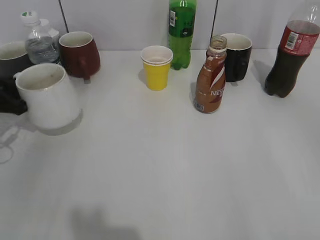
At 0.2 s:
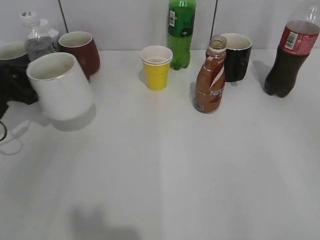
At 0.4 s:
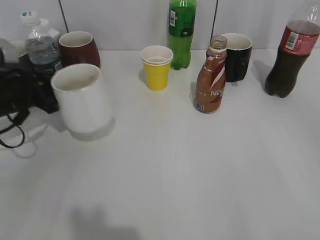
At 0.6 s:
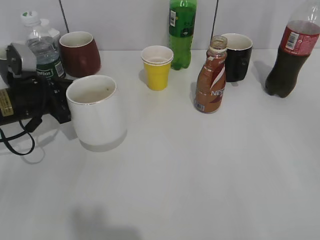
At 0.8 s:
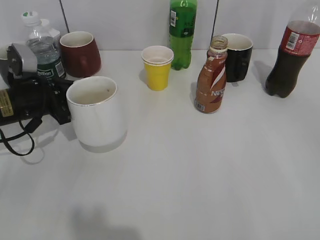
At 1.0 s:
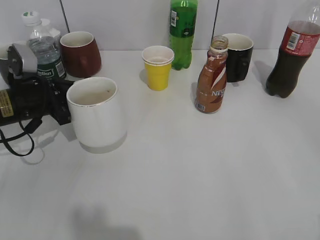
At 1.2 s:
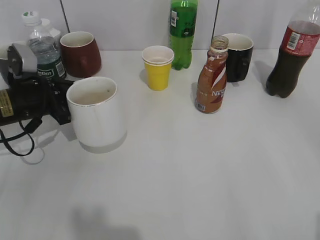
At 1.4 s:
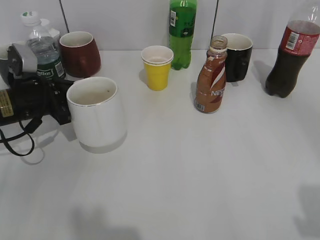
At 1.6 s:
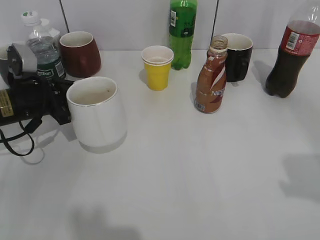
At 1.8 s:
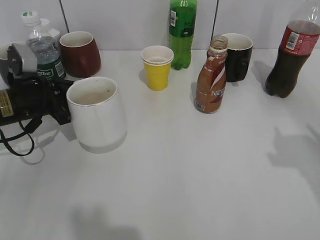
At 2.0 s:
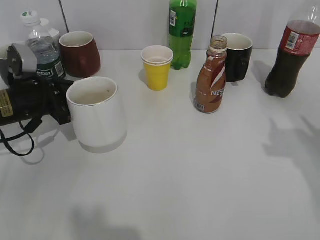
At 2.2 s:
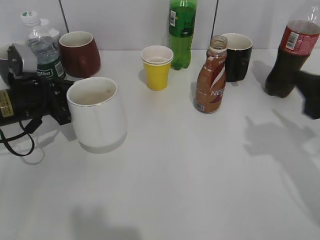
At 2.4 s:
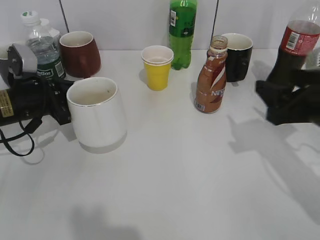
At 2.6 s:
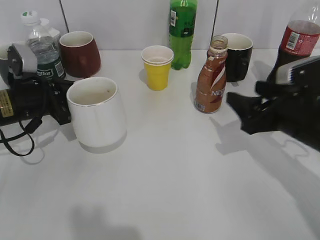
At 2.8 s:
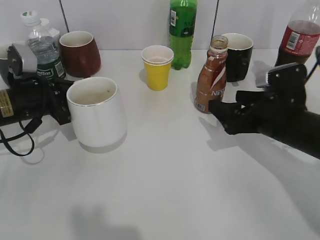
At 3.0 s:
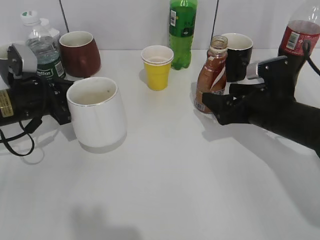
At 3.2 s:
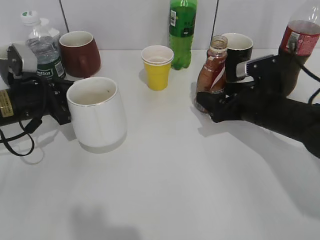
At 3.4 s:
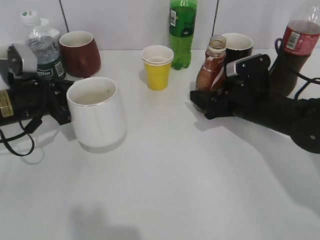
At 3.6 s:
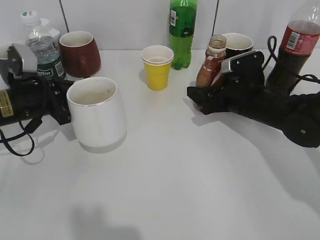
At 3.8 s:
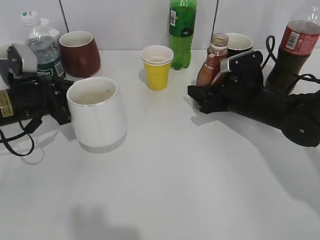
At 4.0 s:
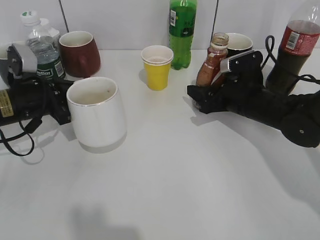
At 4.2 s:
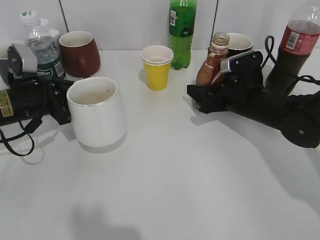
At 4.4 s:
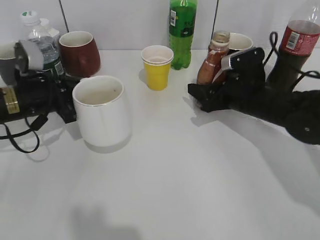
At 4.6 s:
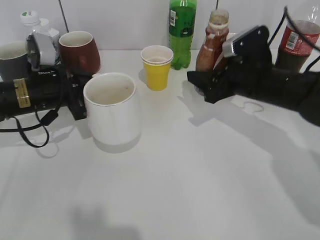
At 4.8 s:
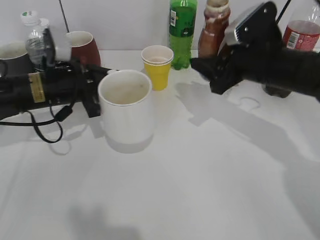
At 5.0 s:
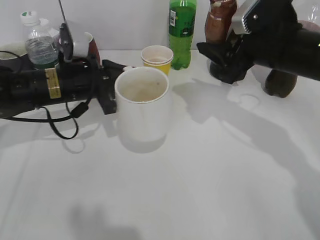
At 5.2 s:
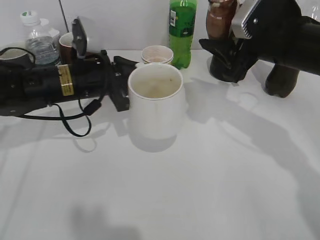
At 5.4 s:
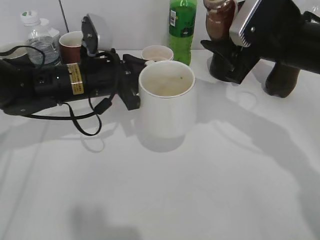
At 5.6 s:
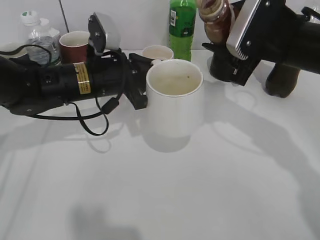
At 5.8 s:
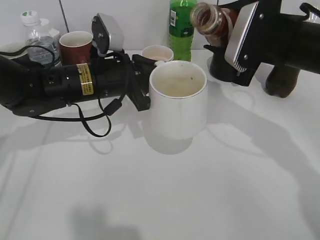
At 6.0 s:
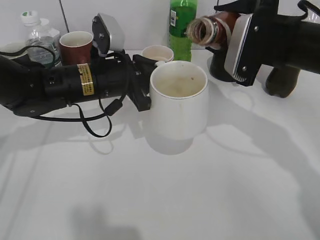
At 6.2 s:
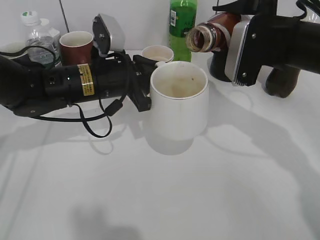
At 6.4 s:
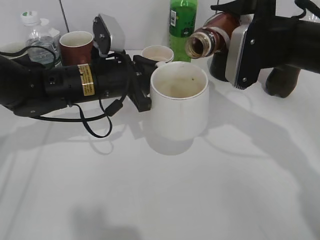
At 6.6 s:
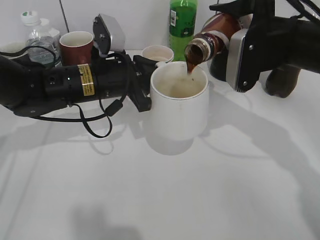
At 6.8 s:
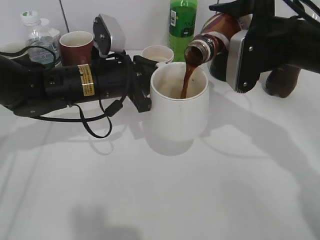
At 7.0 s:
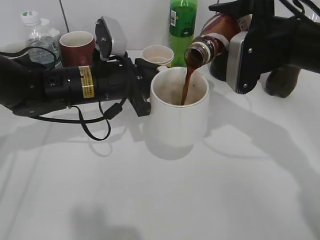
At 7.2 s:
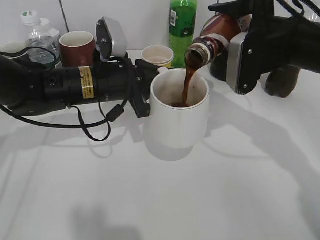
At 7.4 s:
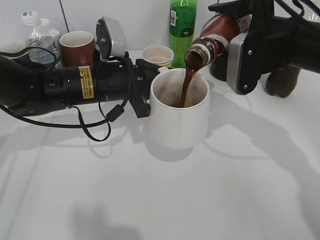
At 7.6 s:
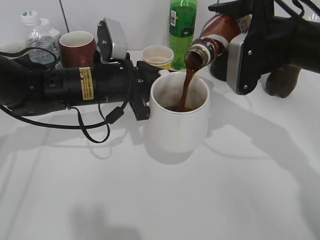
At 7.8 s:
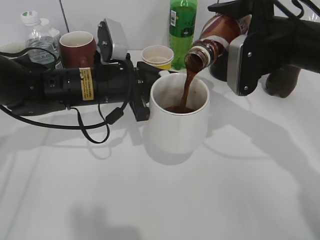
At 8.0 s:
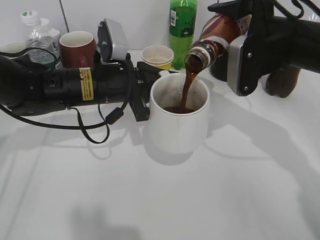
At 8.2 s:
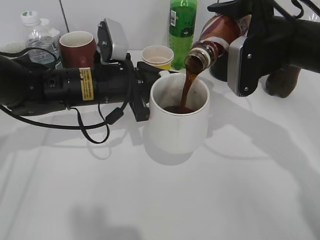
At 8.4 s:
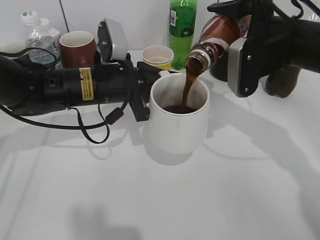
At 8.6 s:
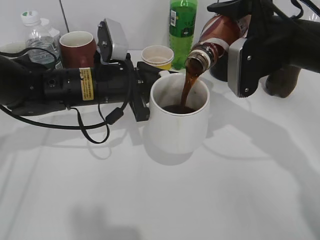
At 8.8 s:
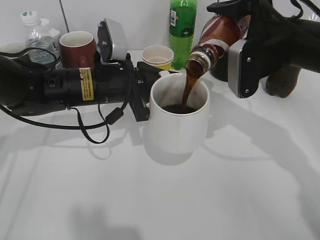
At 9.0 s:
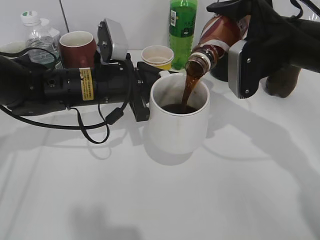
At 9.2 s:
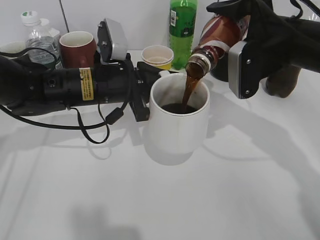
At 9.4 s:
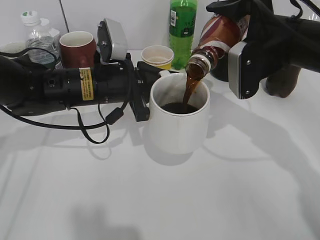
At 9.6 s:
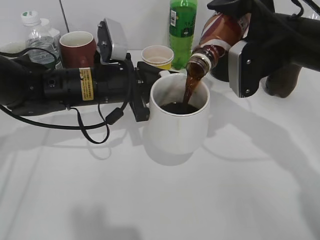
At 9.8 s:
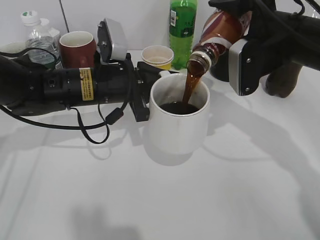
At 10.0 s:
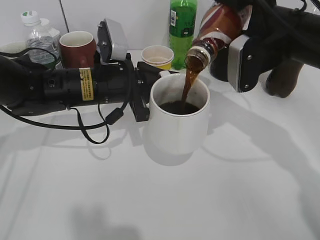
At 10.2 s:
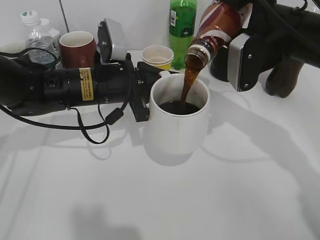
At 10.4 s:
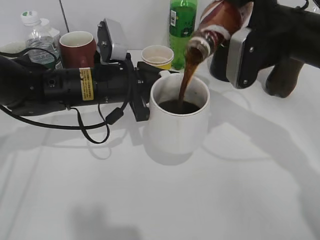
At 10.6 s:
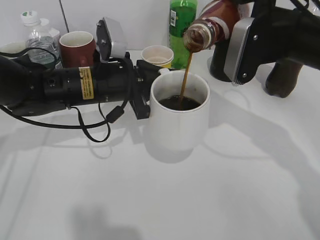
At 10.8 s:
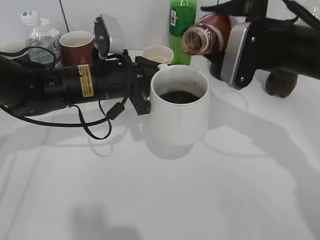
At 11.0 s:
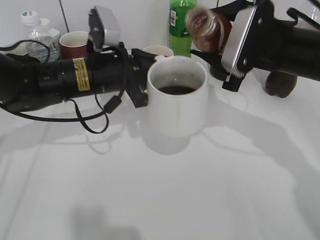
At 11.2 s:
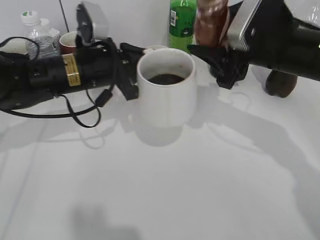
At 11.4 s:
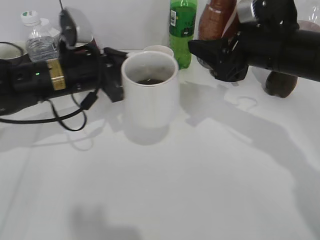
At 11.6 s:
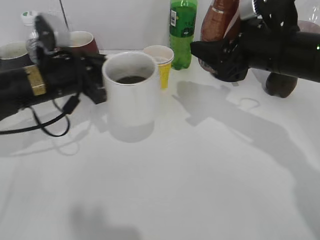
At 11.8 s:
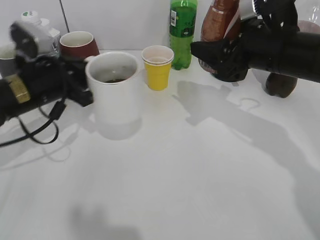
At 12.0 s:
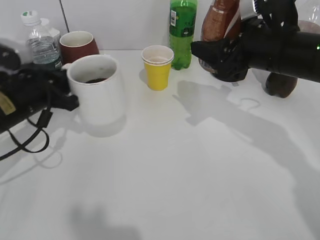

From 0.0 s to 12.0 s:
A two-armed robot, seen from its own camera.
Step, from 0.0 s to 1.0 s: Lift the white cup with left gripper.
Step, from 1.4 s to 4.2 s: Grasp the bottle with coffee with right gripper.
Step, from 4.6 s to 10.8 s: Pour the coffee from bottle to cup with right gripper.
From 0.0 s to 1.6 s: The right gripper travels forward by approximately 10 cm; the left gripper travels to the right by some 10 cm.
From 1.6 s to 3.0 s: The right gripper moves forward, downward and to the left, about 30 cm, and opens up.
From 3.0 s to 4.4 s: The right gripper moves forward, roughly 5 cm, and closes.
From 4.4 s to 6.0 s: The left gripper heads to the right, covering about 15 cm; the right gripper is displaced upward by about 15 cm.
From 7.6 s to 10.4 s: The grippers make only small movements.
From 10.4 s to 12.0 s: The left gripper is displaced to the left by some 15 cm.

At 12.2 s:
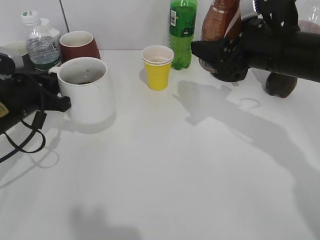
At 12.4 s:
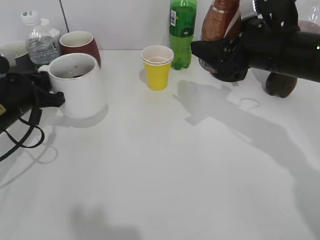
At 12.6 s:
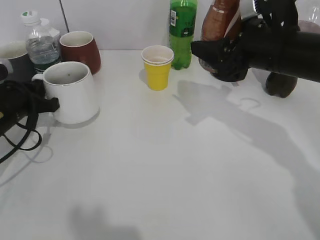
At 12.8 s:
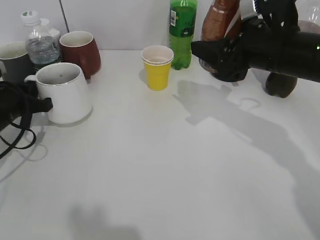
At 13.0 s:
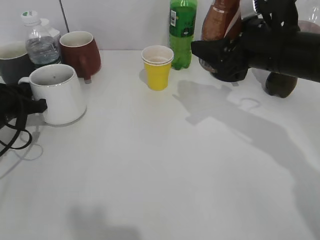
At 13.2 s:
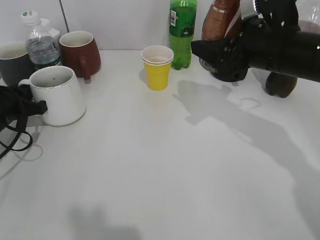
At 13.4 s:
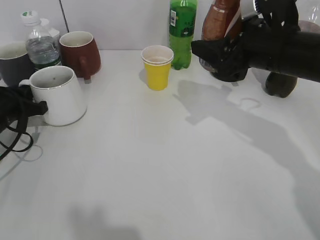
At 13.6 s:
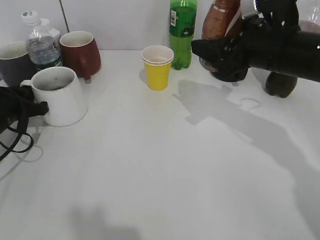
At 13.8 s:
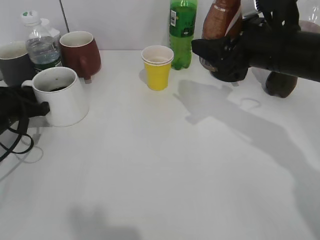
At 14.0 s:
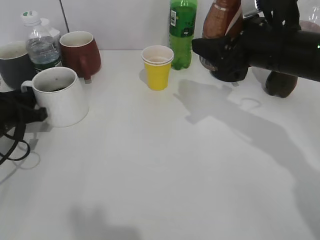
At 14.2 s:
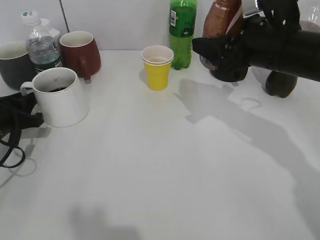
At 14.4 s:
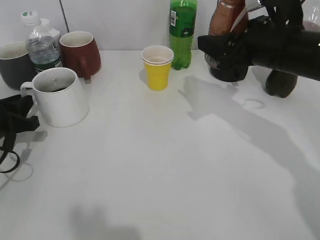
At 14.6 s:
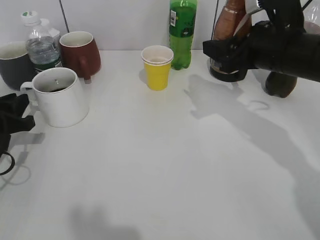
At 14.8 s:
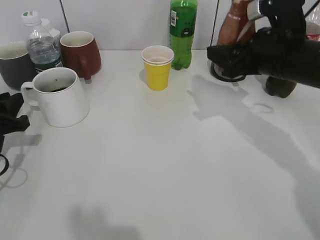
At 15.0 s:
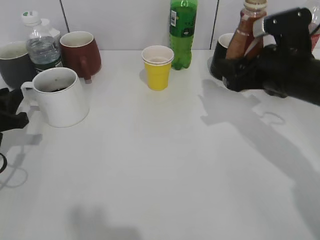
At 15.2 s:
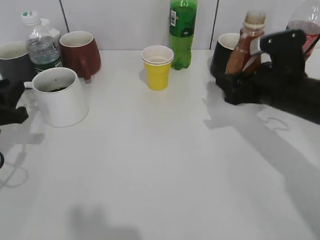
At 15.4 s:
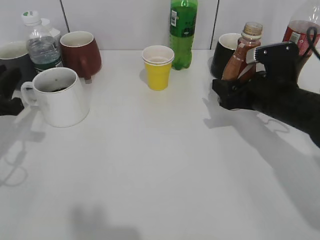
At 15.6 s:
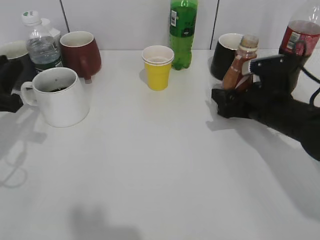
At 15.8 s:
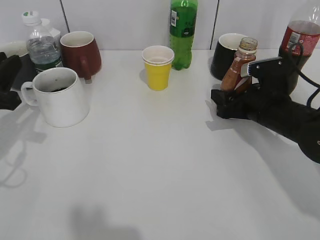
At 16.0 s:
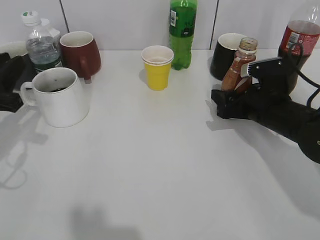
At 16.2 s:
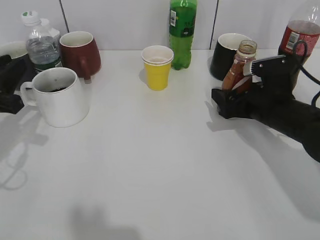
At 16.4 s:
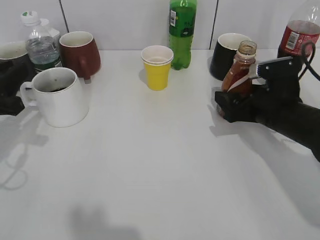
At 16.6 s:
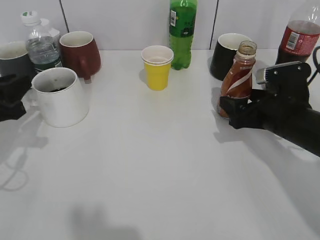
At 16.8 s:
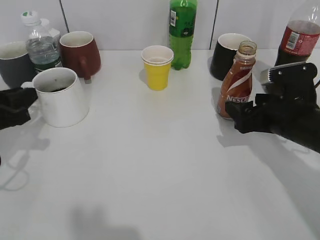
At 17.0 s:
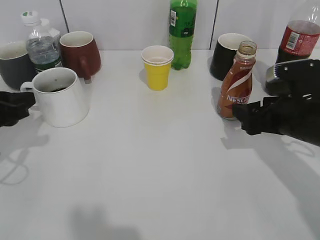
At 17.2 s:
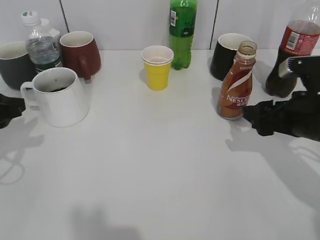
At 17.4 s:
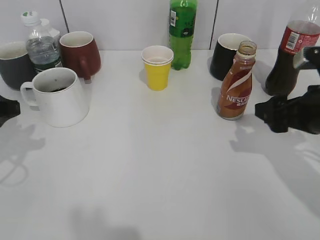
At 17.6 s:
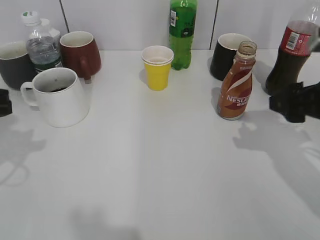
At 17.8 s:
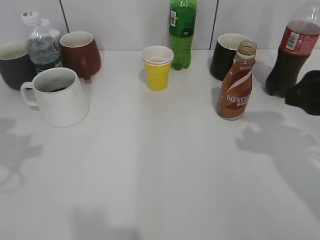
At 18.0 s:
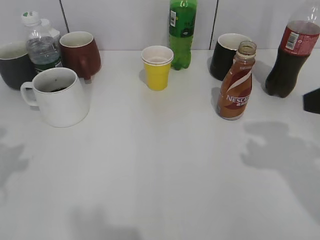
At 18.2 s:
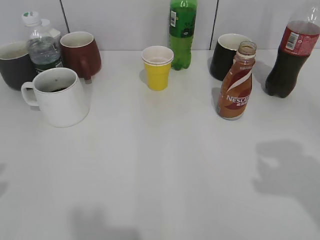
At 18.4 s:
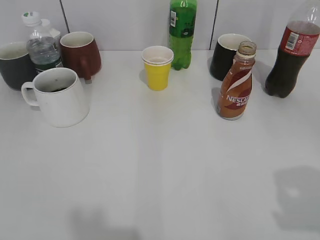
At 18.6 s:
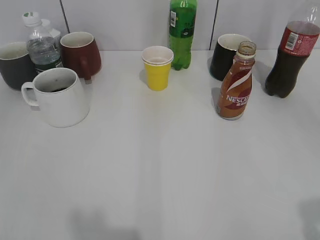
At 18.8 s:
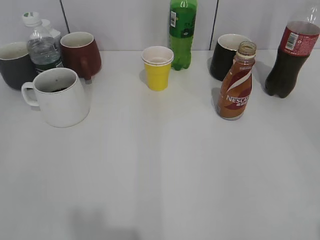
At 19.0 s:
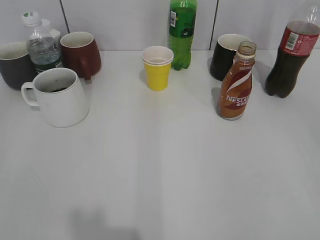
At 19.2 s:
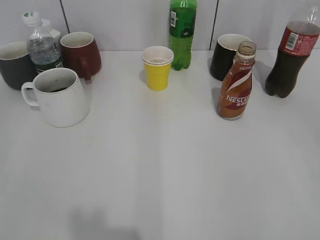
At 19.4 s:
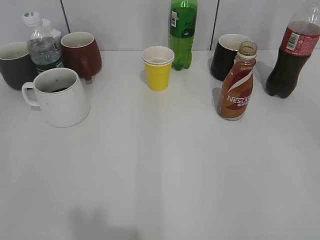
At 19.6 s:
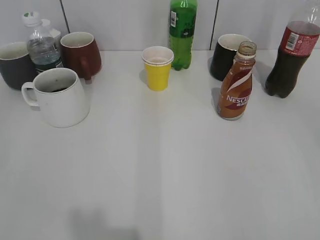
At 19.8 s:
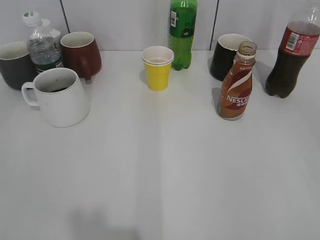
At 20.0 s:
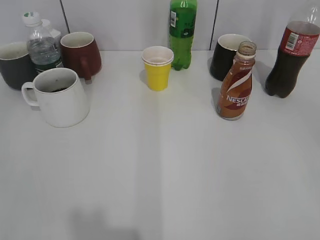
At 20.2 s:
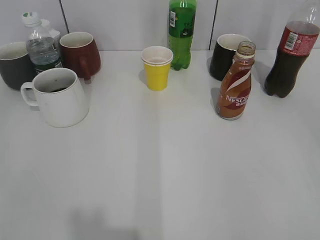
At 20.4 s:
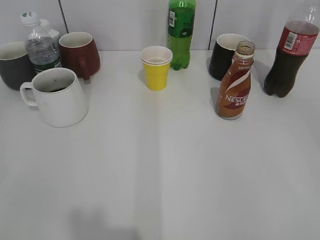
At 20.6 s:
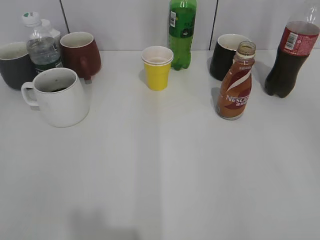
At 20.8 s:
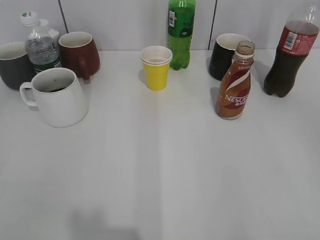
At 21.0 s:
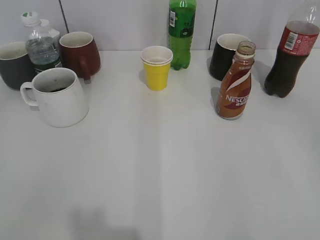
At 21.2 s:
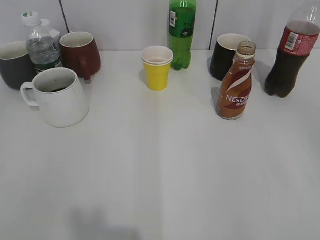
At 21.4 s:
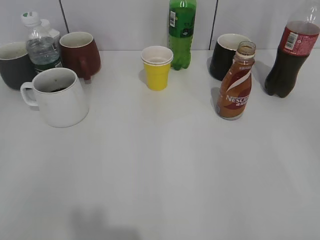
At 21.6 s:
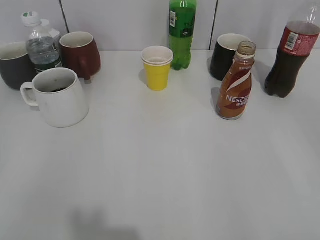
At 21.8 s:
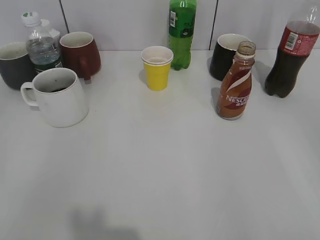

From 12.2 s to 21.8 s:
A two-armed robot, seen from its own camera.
Step, from 12.2 s to 14.4 s: Place the white cup on the table with left gripper.
Step, from 14.6 s to 16.6 s: Place the coffee bottle on the table with right gripper.
From 12.2 s to 13.8 s: The left gripper changes place by about 5 cm.
From 13.8 s to 15.4 s: The right gripper shifts some 10 cm downward, while the left gripper is displaced backward and upward by some 10 cm.
From 15.4 s to 17.0 s: The right gripper shifts by approximately 5 cm, and opens up.
From 17.0 s to 18.6 s: The grippers both shift backward and upward by about 25 cm. The left gripper opens up.
